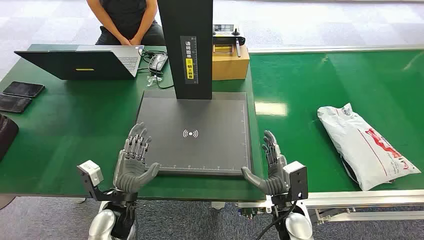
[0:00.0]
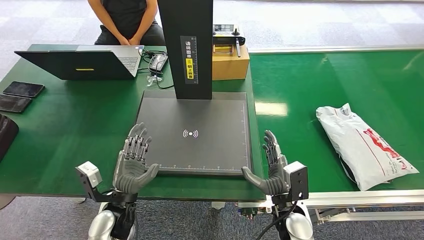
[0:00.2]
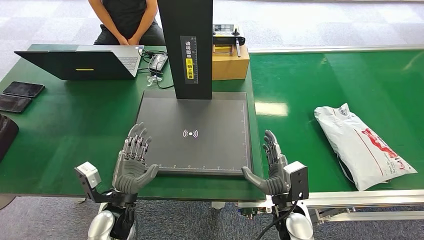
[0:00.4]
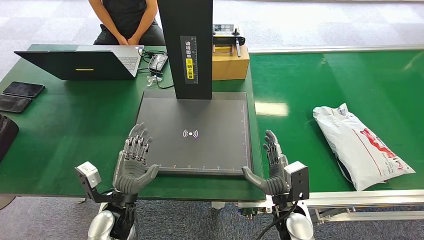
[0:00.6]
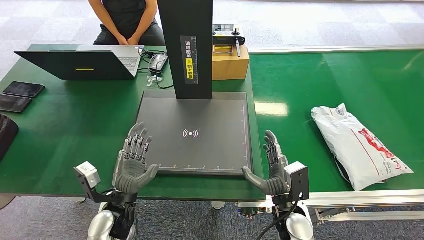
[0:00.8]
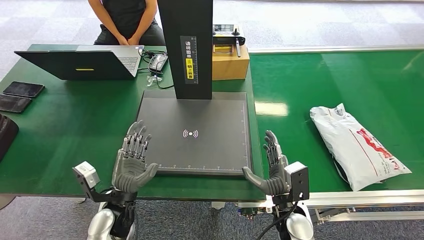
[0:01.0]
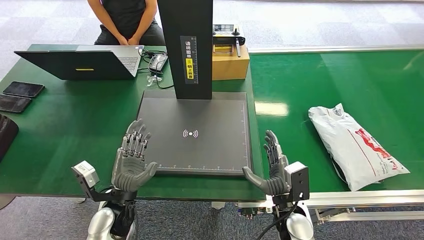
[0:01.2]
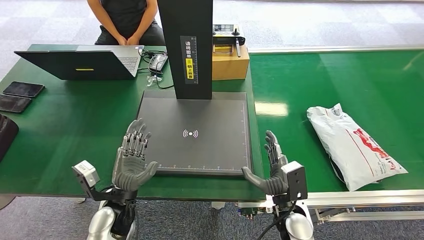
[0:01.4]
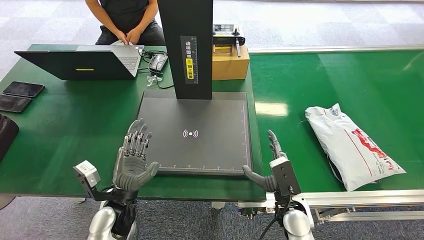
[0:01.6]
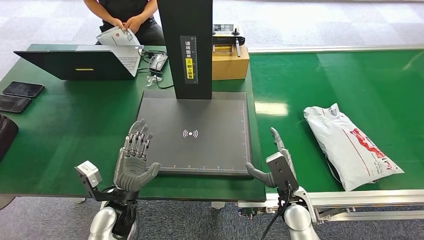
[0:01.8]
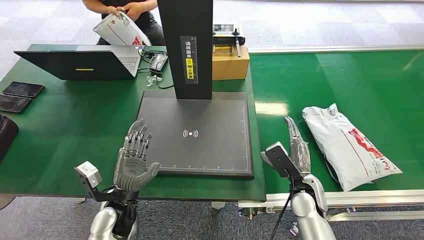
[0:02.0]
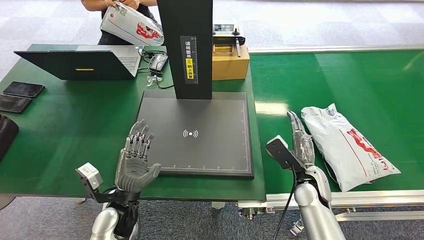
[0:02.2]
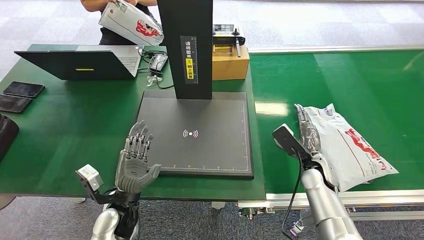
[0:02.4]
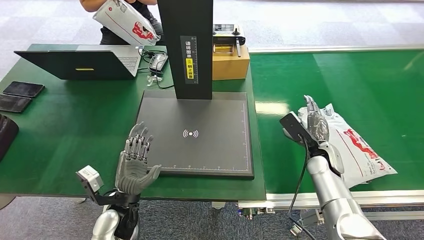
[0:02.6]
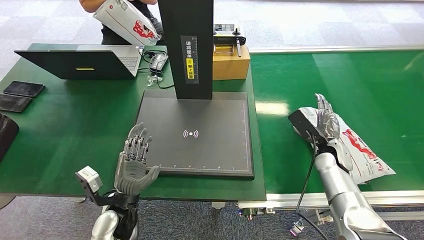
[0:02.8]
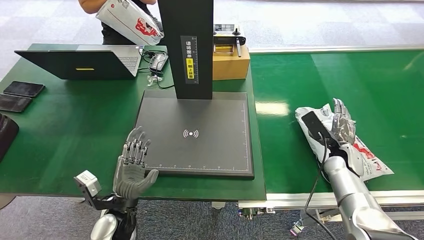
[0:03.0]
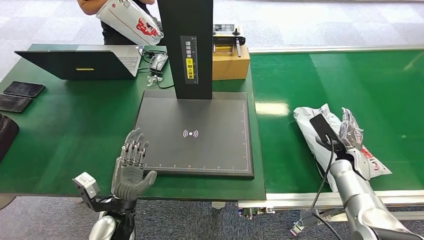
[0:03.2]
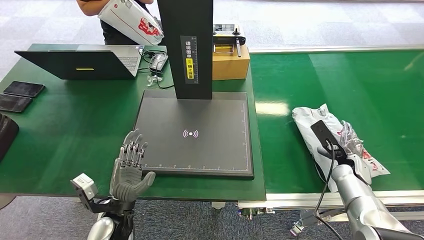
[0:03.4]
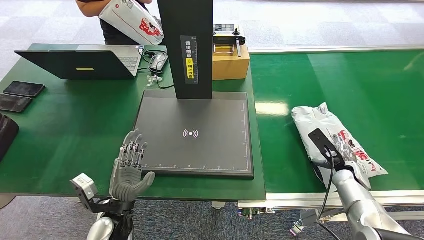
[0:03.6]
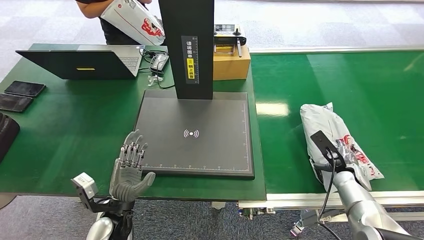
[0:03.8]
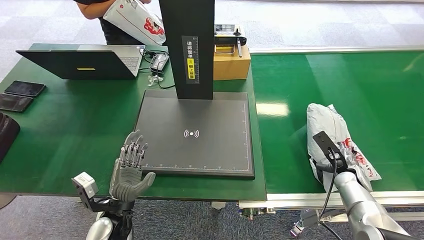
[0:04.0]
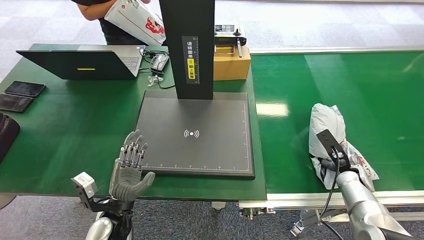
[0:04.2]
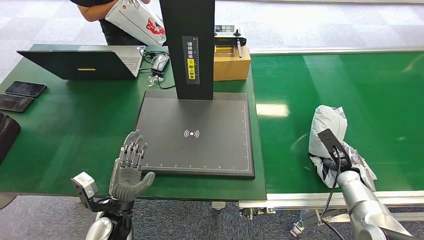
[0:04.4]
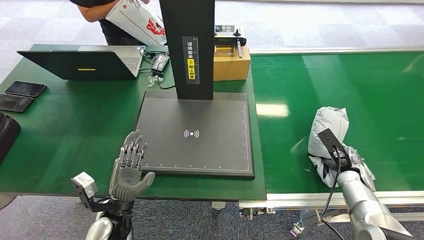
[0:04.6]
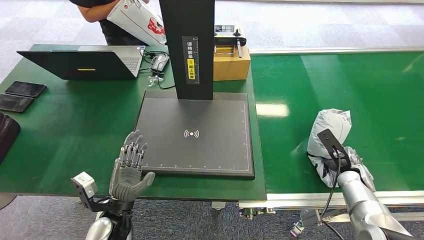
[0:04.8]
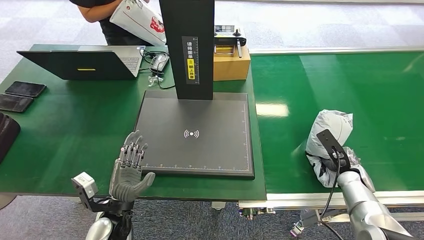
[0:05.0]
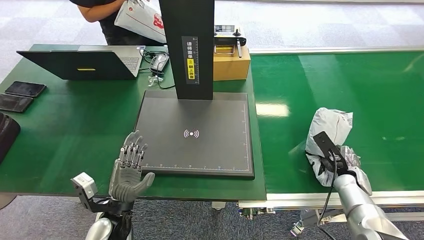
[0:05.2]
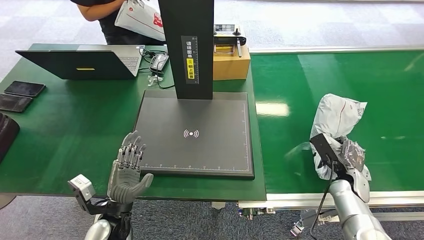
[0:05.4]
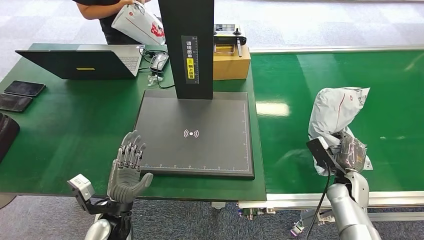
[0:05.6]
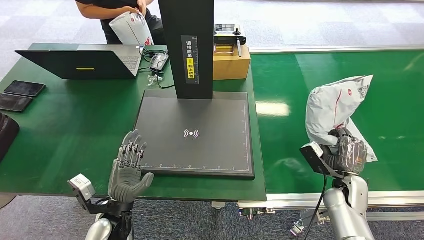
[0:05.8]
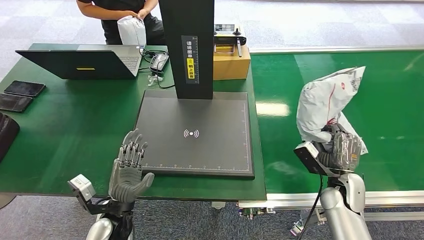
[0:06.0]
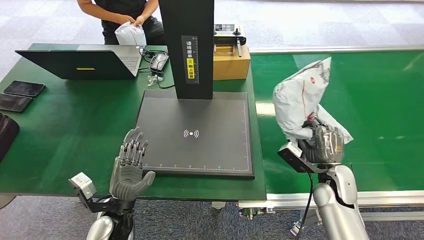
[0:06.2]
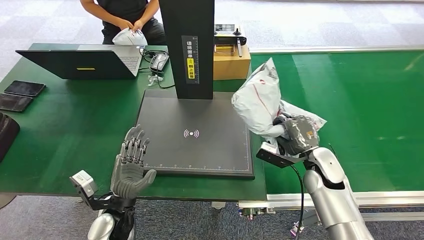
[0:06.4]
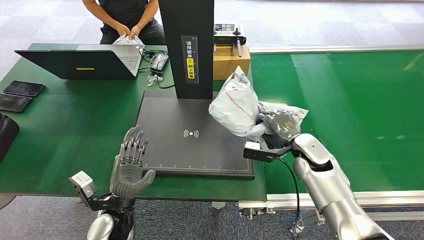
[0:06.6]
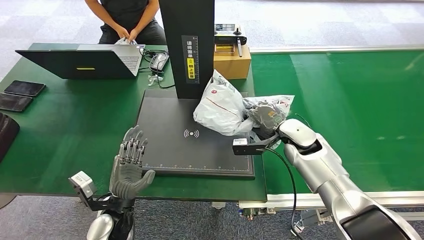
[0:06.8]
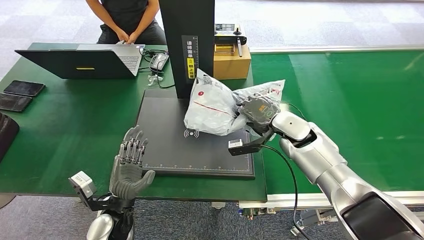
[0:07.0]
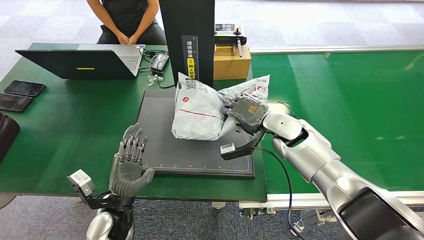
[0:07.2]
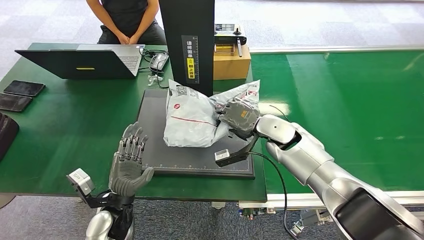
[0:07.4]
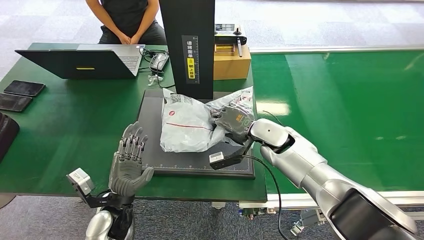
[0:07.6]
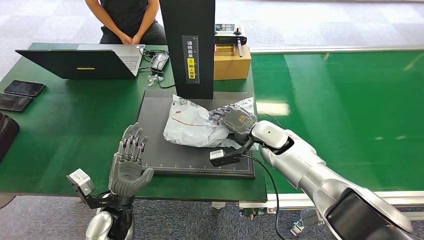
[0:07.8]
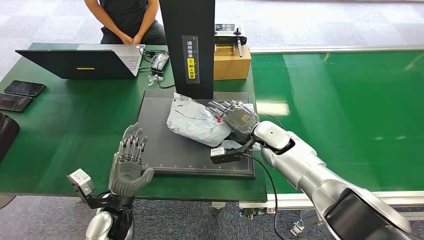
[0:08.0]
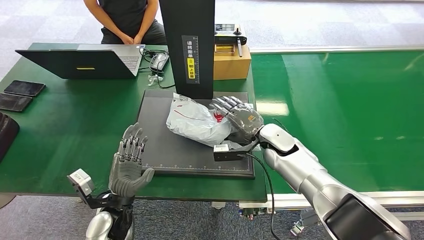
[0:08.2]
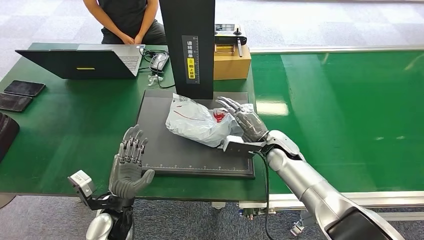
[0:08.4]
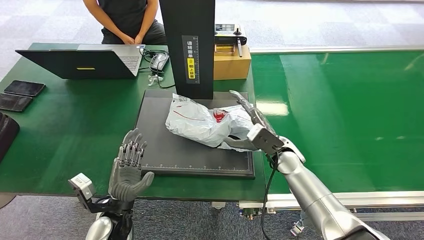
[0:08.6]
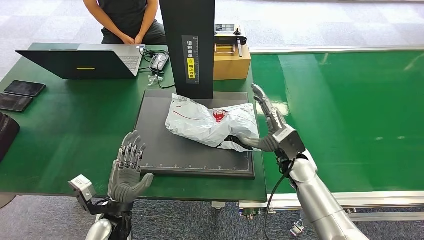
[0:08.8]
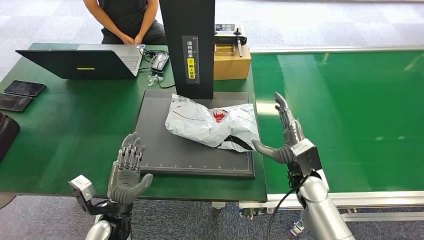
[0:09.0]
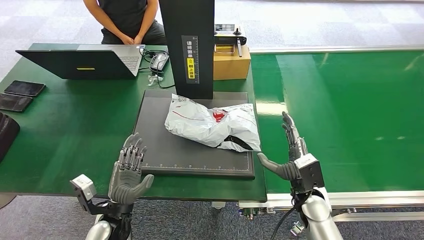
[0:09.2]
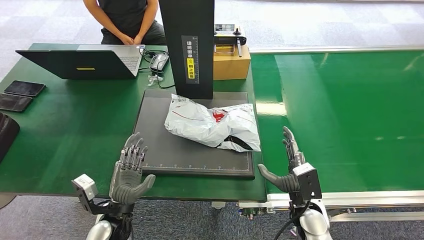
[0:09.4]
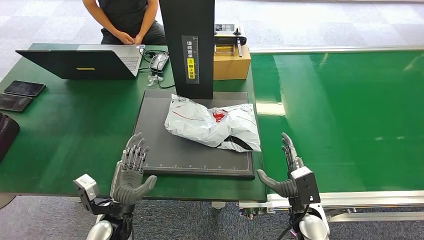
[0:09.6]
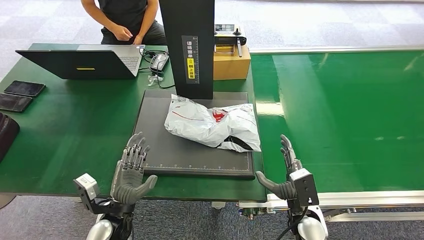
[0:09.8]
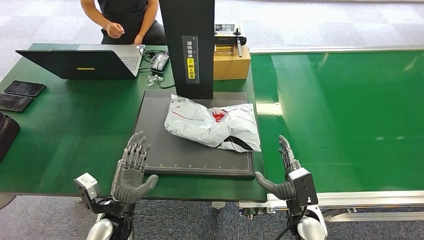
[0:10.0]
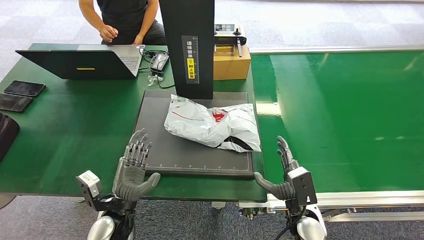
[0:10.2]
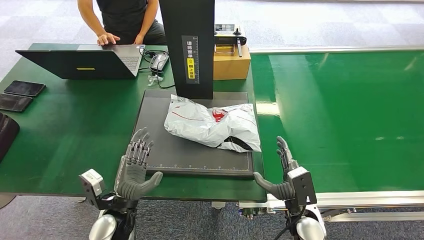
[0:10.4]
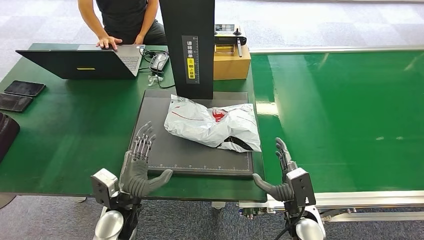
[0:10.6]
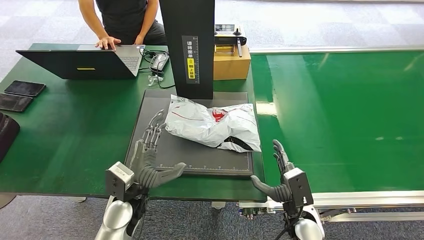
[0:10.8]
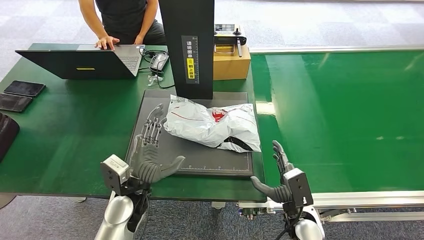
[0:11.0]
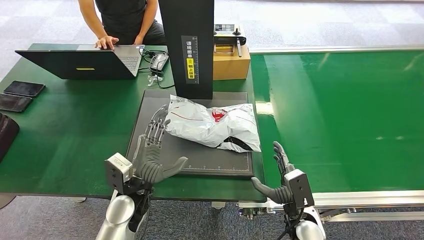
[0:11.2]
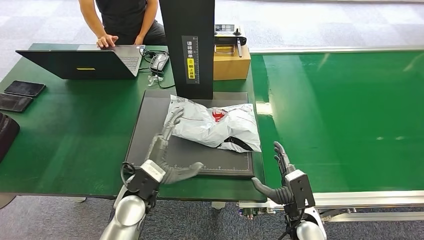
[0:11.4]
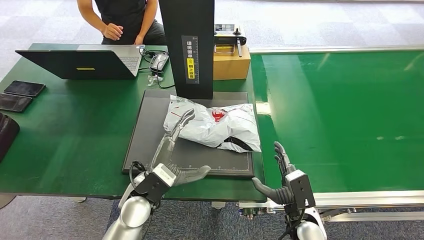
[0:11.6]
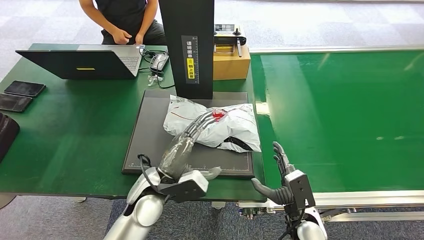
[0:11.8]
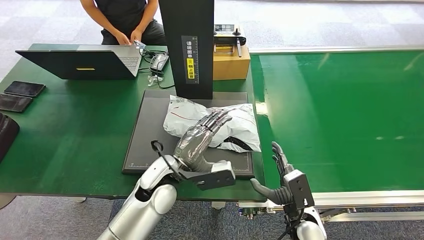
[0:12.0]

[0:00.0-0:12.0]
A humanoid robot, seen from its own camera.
Task of the whole recording: Weigh the package on the weighing device and place it in the left basket.
Step, 0:00.0 to 0:05.8: Pick up the package from the conveyor belt.
Step, 0:06.2 to 0:09.2: Place the package onto the inbound machine.
0:01.6 to 0:03.0: The right hand moves to the right and forward, approximately 20 cm.
0:03.0 to 0:04.4: The right hand is displaced downward by some 5 cm.
0:04.4 to 0:06.0: The right hand goes roughly 5 cm to the left.
0:07.6 to 0:09.0: The right hand shifts about 15 cm backward, to the right and downward.
0:09.0 to 0:10.4: The right hand travels backward and downward by about 10 cm.
0:10.4 to 0:12.0: The left hand heads to the right, upward and forward, covering about 15 cm.

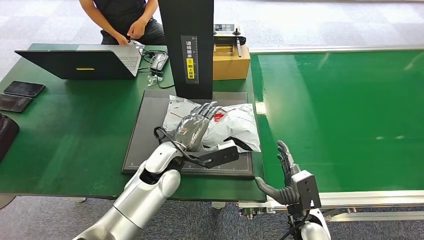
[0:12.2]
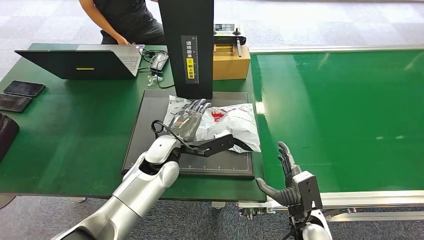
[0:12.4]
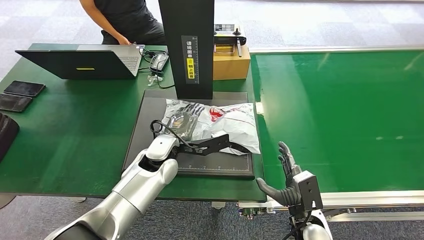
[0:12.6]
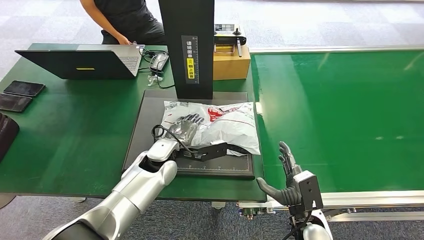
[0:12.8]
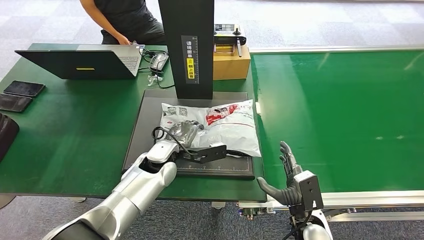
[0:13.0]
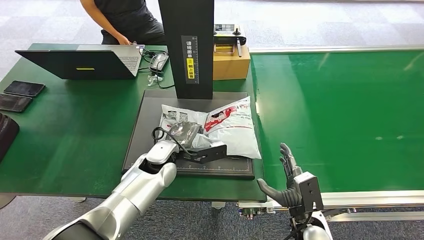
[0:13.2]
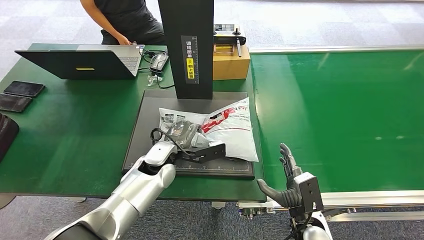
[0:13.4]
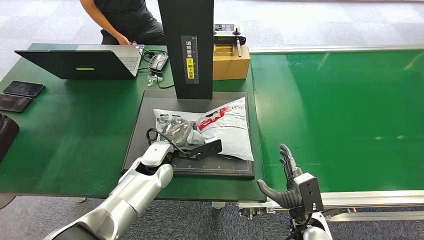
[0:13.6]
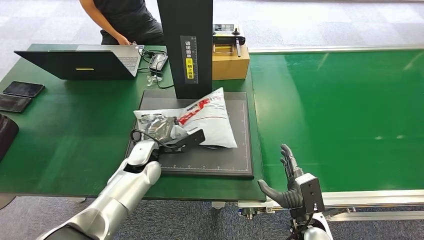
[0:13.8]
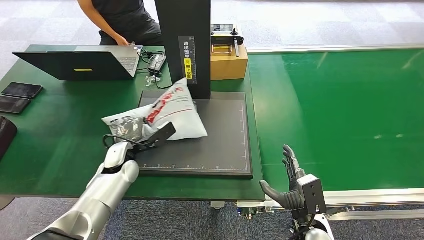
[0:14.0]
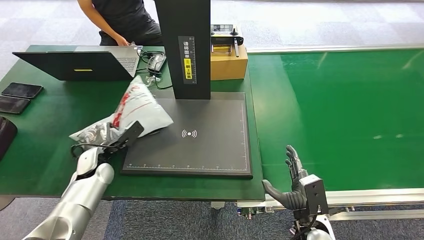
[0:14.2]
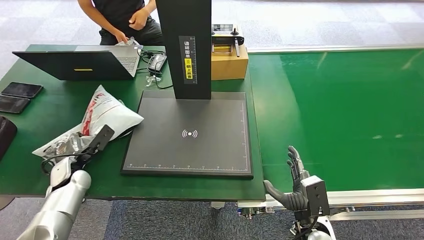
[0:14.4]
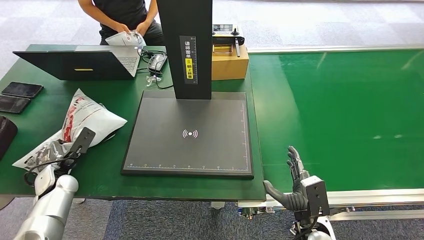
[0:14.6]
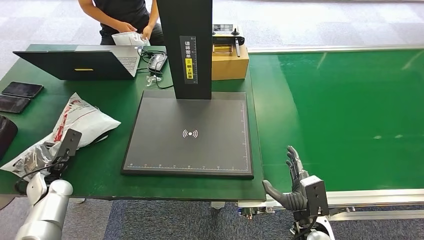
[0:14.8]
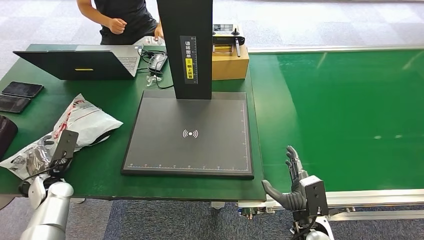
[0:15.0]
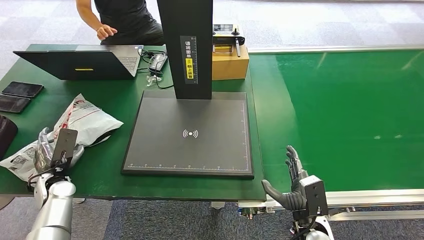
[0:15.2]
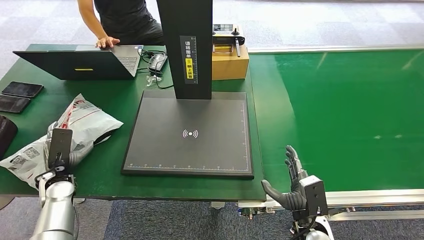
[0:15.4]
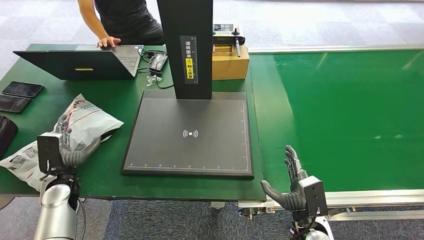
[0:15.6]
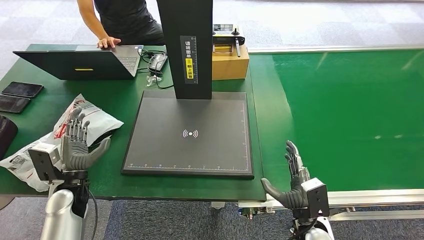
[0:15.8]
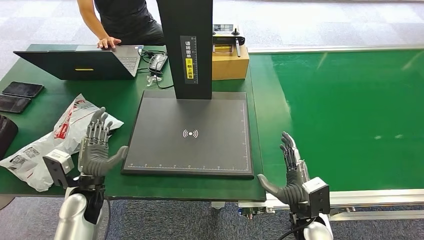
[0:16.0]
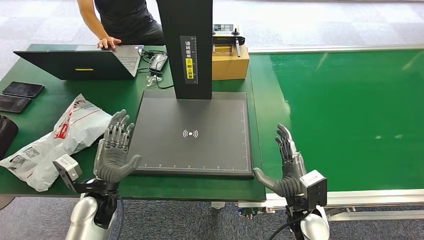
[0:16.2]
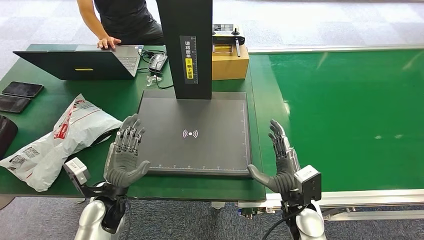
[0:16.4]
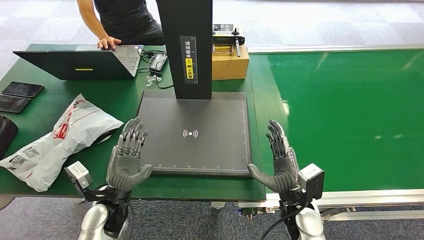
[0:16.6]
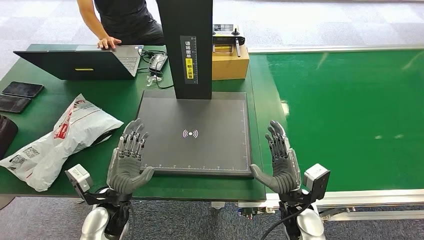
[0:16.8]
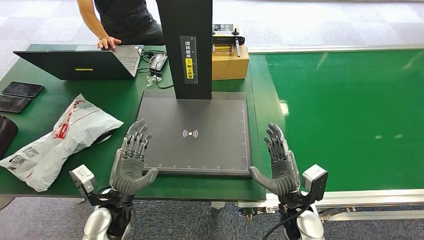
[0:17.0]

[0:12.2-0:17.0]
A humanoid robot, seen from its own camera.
Task of the whole recording: Weigh the package on the weighing device and place it in the left basket.
Step, 0:14.2 to 0:17.0: Place the package into the parcel locker.
0:12.2 to 0:13.8: The left hand shifts roughly 5 cm to the left.
0:15.4 to 0:17.0: The right hand changes place by some 5 cm; the left hand travels to the right by about 20 cm.
